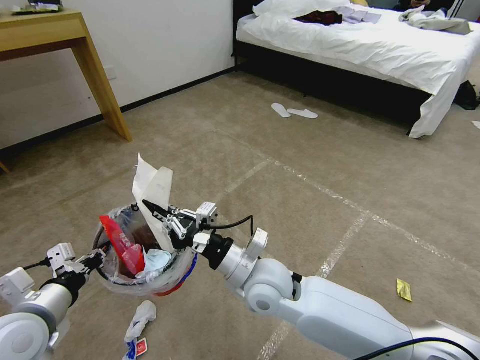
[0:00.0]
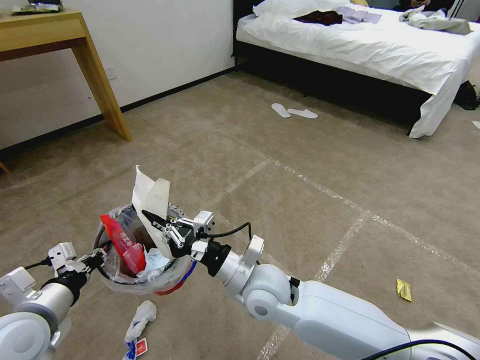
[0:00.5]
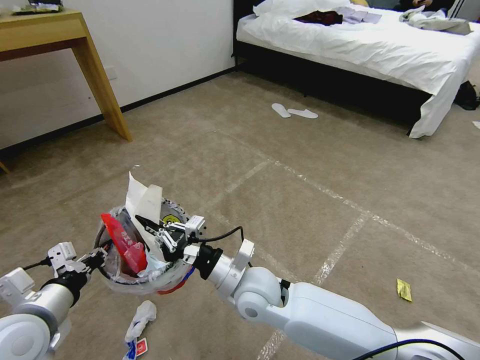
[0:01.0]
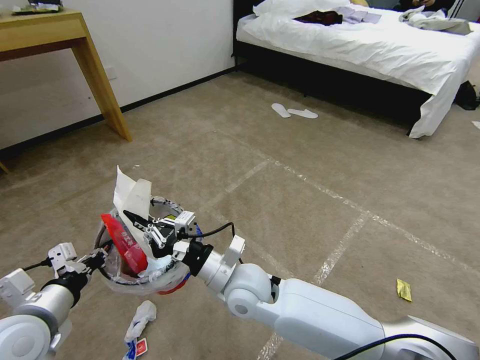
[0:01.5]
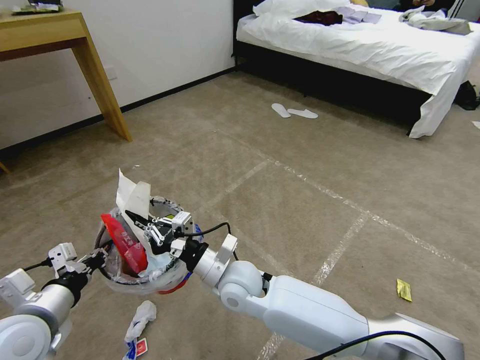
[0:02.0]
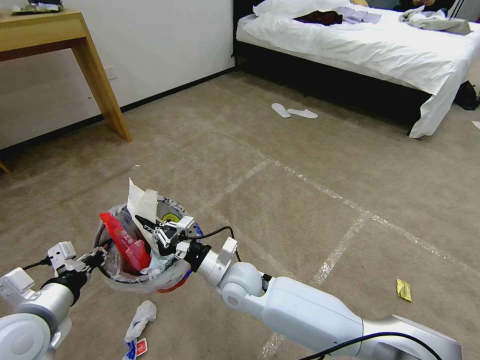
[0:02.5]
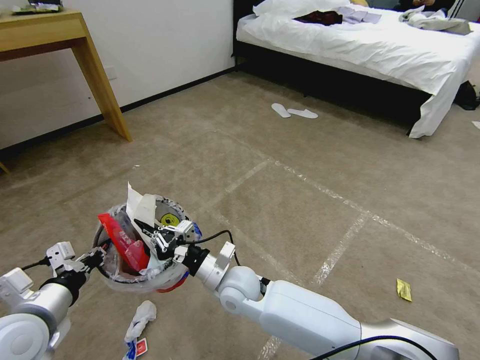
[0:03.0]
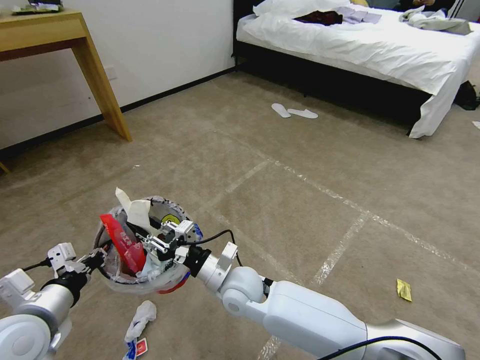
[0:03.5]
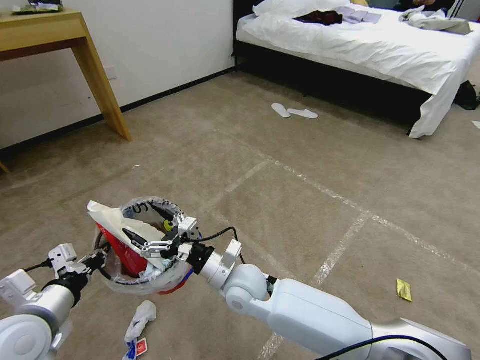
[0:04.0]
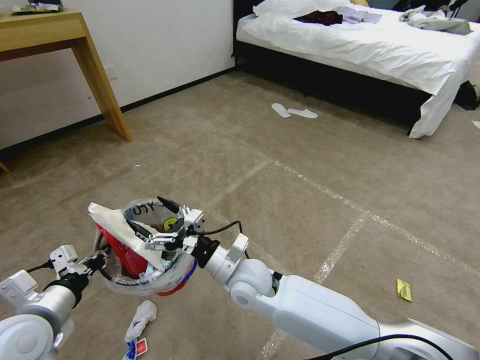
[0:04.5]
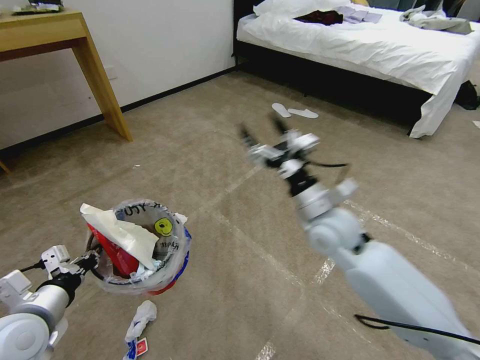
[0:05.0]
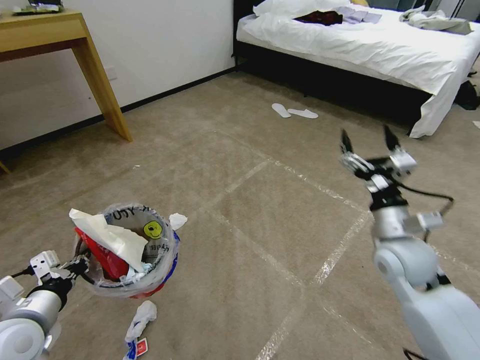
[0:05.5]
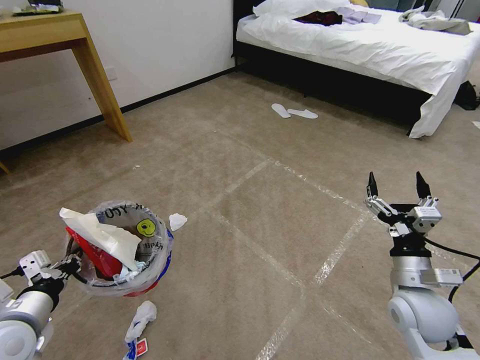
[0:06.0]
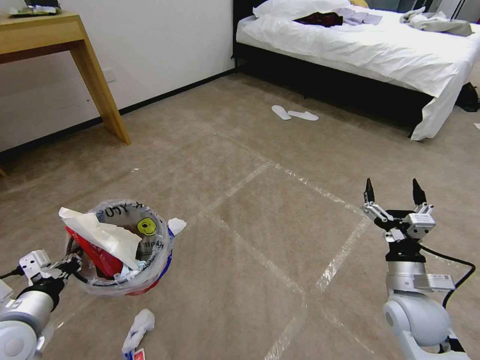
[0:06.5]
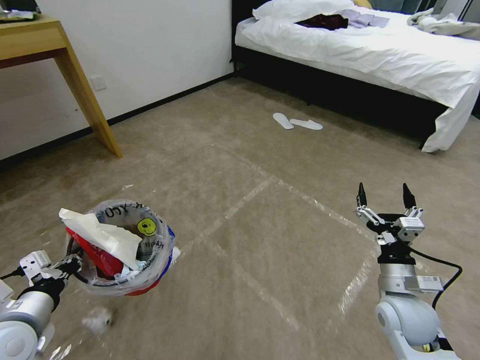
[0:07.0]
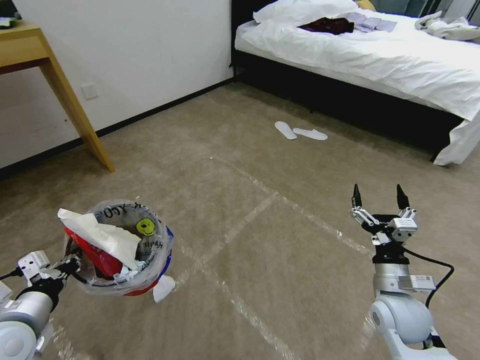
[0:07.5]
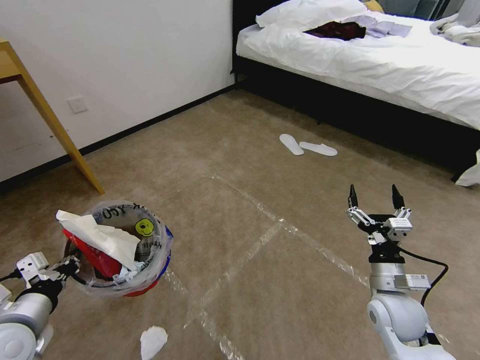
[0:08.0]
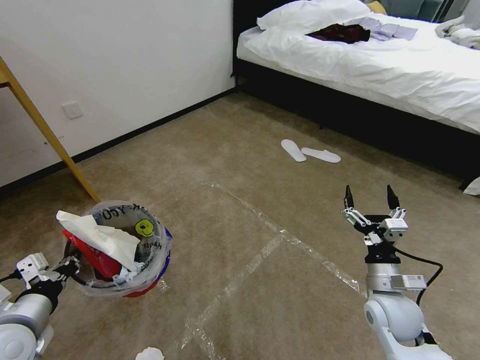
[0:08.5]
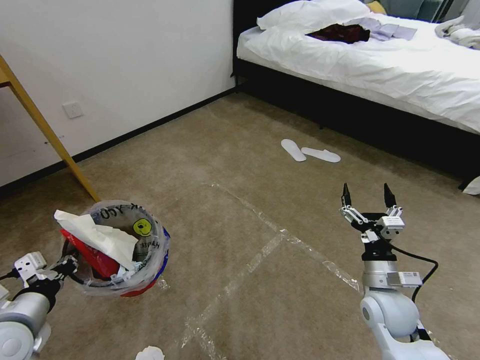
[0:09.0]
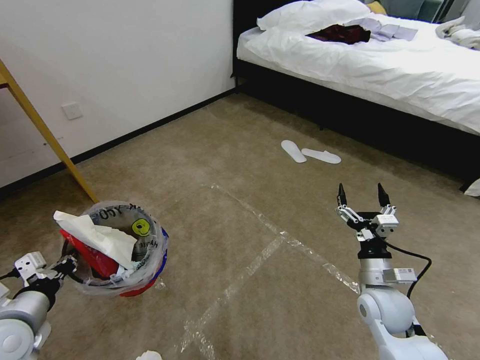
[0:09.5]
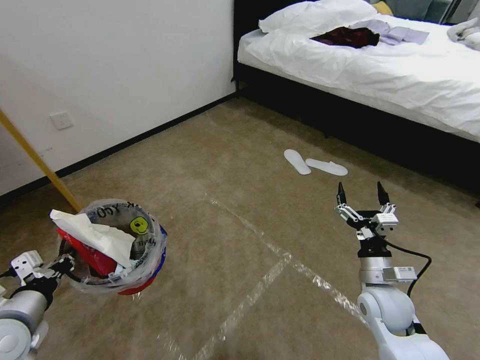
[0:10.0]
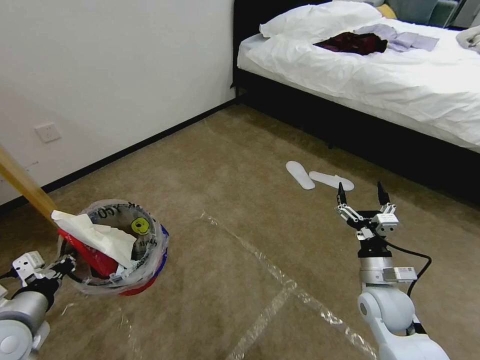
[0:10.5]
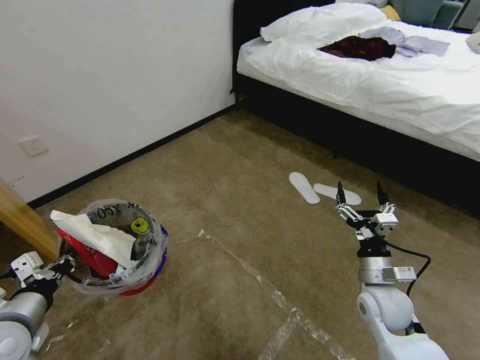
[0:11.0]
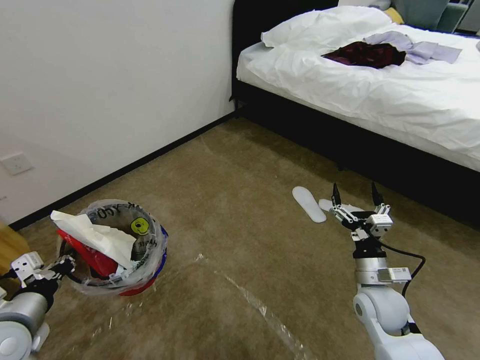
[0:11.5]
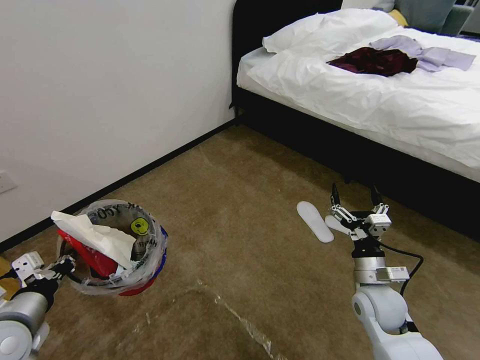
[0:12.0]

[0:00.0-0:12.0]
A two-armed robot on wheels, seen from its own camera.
Task of the whole recording: Pick up the trash bin and place the garbage on the floor into it.
0:00.0 to 0:02.0: The right gripper shifts about 5 cm to the left.
0:02.0 to 0:04.0: The right gripper opens.
0:04.0 to 0:06.0: The right gripper heads to the right, covering approximately 35 cm.
0:06.0 to 0:08.0: The right gripper moves about 5 cm.

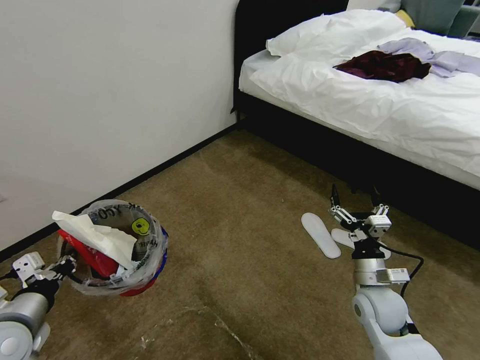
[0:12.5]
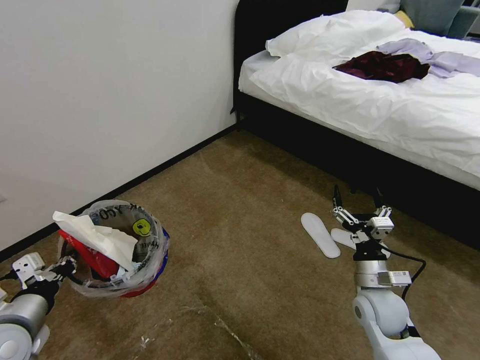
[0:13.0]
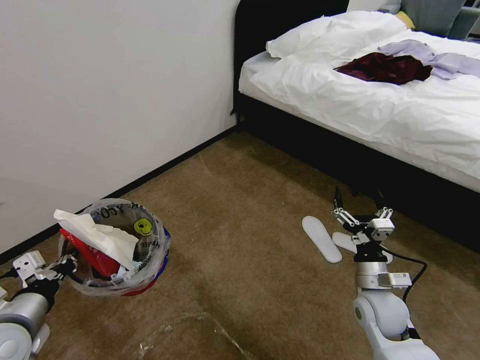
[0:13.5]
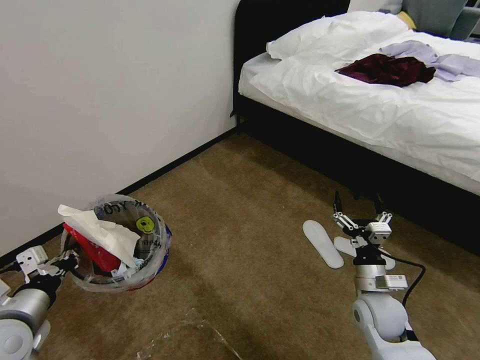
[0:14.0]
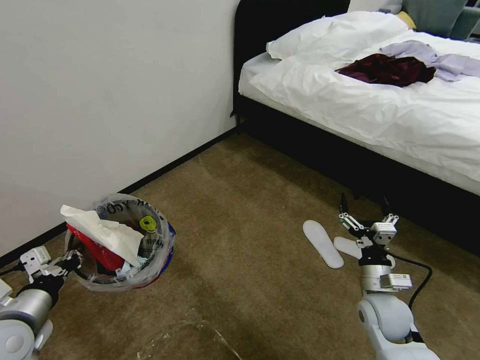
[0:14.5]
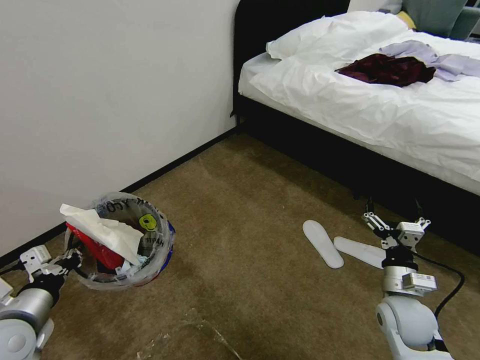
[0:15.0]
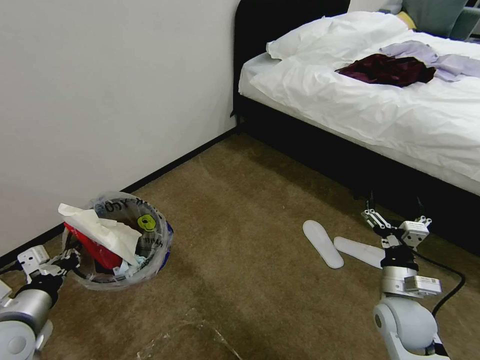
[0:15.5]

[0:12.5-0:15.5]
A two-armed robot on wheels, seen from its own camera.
Task of the whole recording: Pick up the trash bin and place the garbage on the floor into it.
0:12.5 to 0:15.5: The grippers make only small movements.
